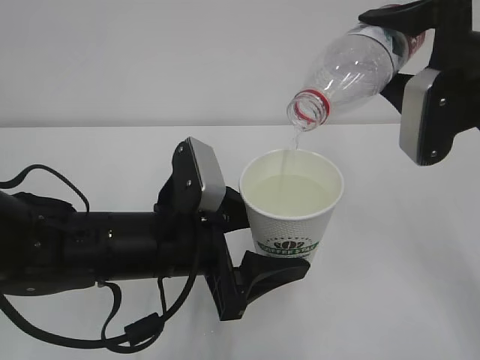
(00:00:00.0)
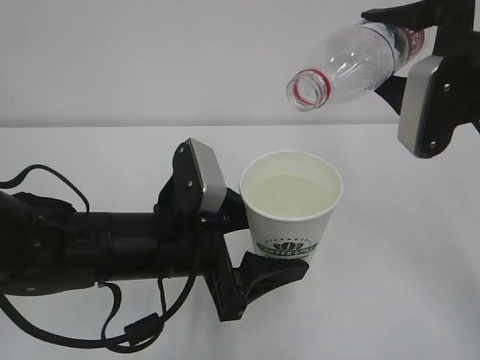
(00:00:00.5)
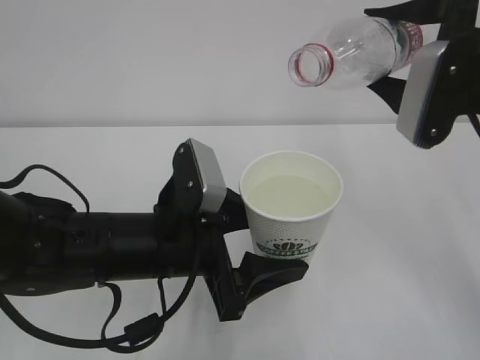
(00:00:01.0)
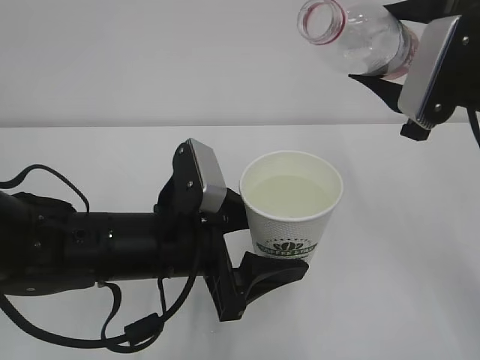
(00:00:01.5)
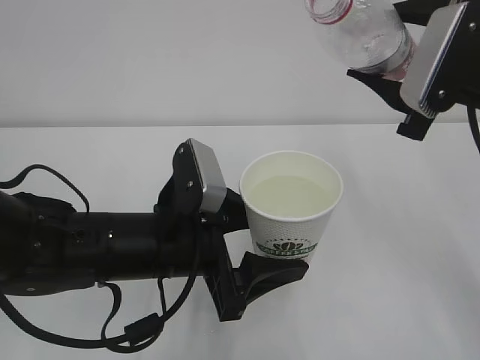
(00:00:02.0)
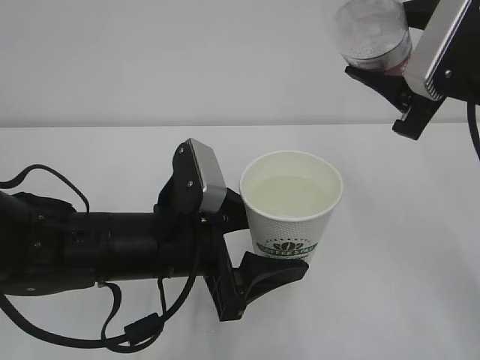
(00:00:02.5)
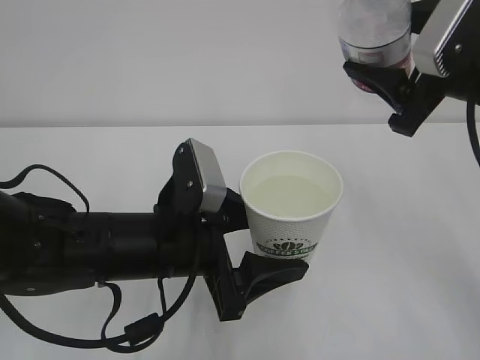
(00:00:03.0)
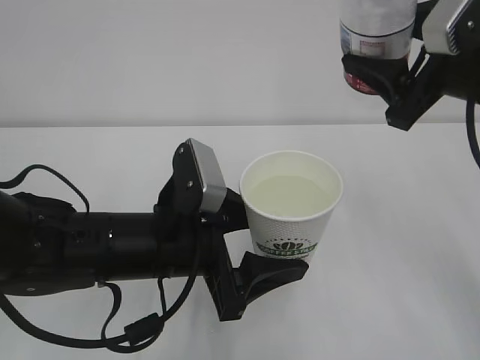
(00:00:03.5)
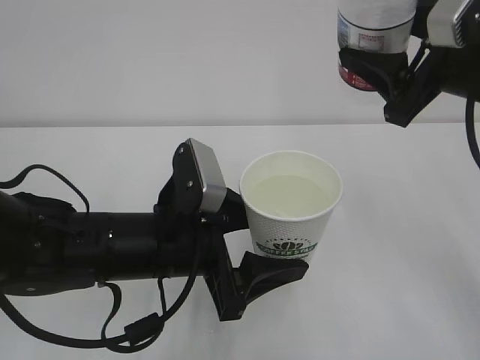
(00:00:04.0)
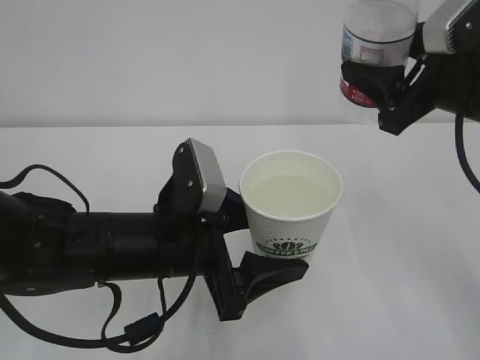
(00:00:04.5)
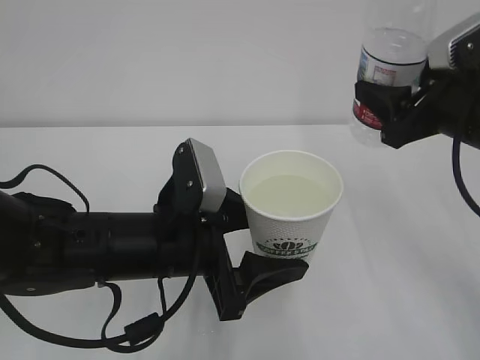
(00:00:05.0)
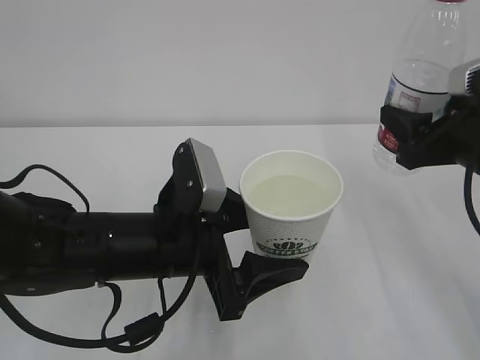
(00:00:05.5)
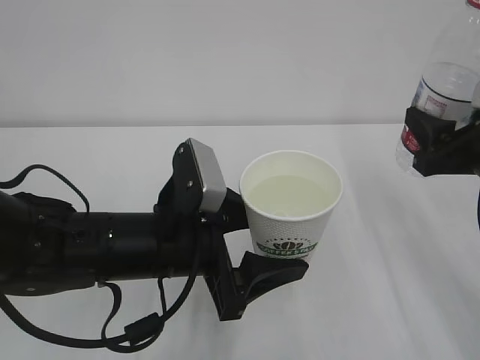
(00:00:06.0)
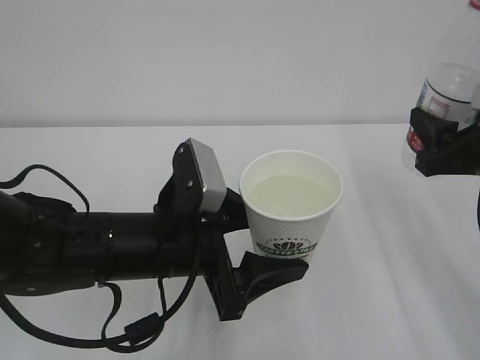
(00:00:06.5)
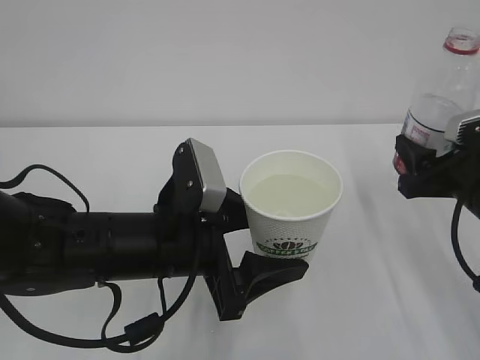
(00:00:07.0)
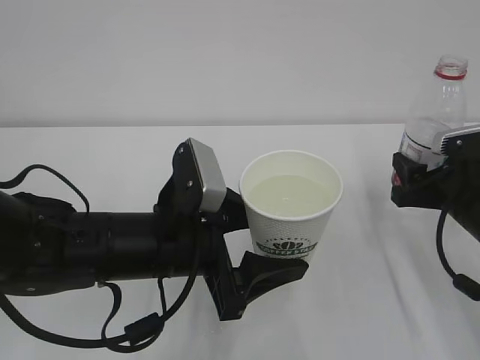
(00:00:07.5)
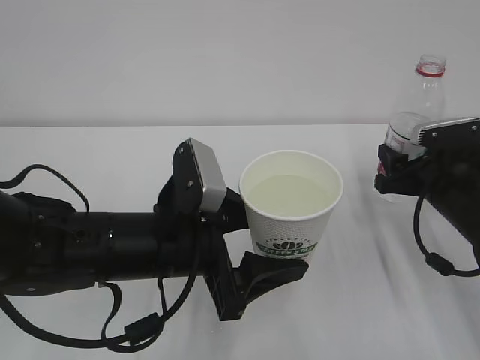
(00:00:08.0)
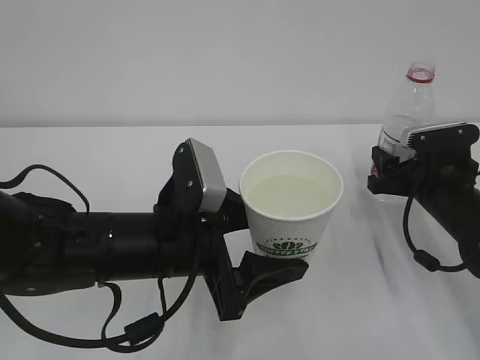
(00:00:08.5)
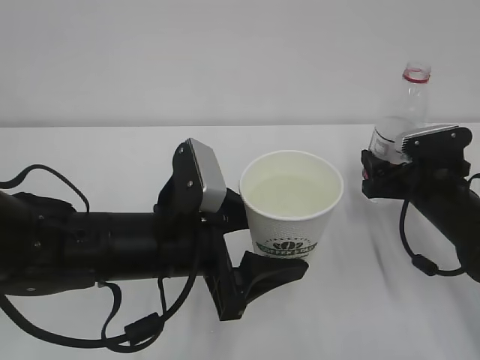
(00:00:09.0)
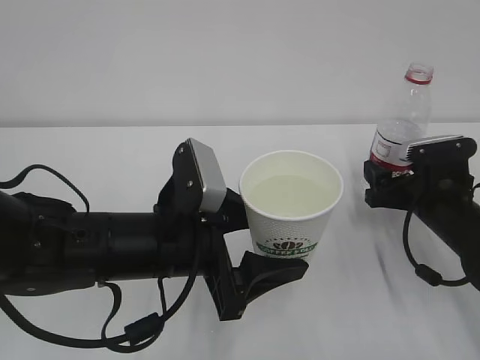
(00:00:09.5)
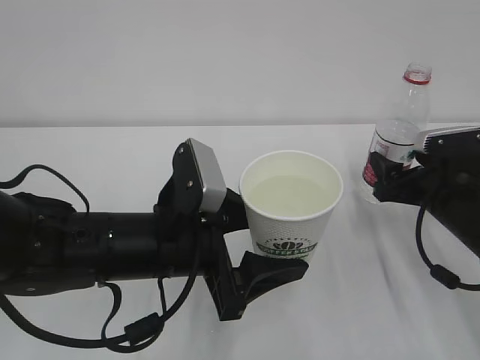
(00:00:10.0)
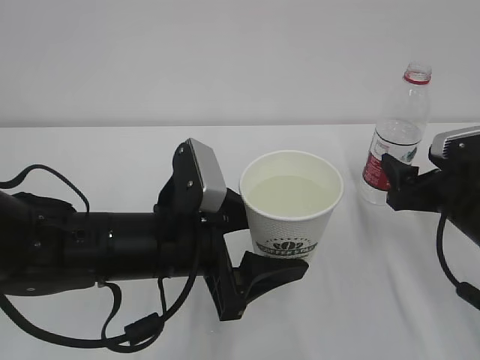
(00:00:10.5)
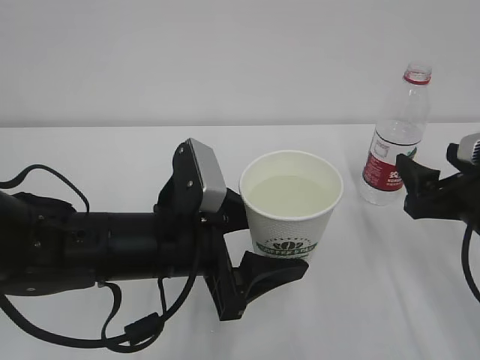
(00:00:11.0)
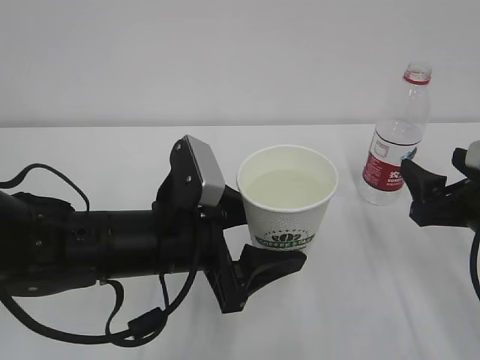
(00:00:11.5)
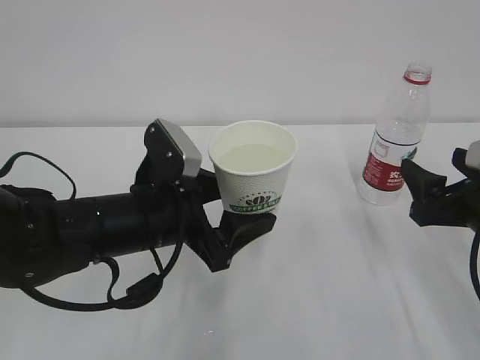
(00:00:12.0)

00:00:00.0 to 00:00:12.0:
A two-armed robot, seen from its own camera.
00:00:04.0 to 00:00:06.0: The right gripper goes about 10 cm downward.
00:00:06.0 to 00:00:08.0: The right gripper heads downward and forward, covering approximately 10 cm.
00:00:08.0 to 00:00:10.0: The right gripper opens.
00:00:10.0 to 00:00:12.0: The right gripper heads backward, covering some 10 cm.

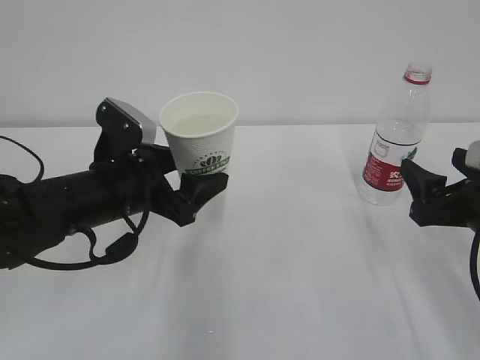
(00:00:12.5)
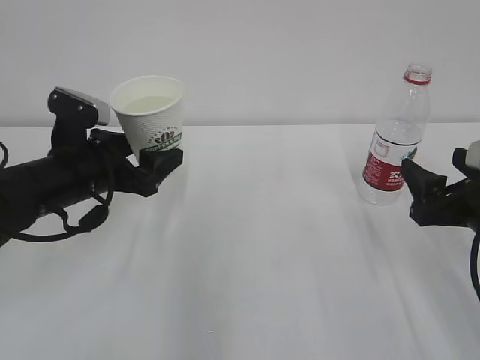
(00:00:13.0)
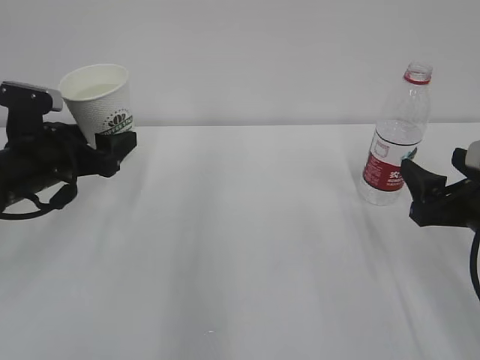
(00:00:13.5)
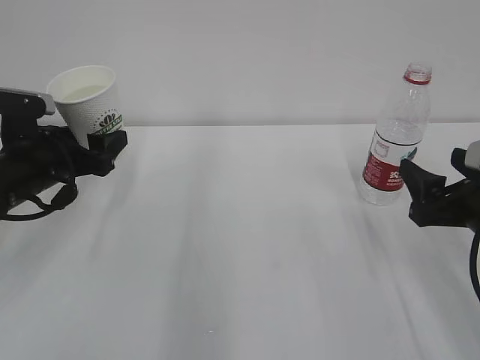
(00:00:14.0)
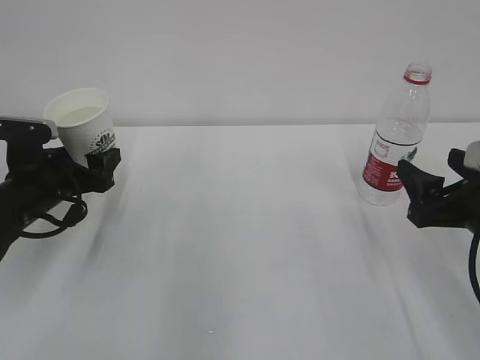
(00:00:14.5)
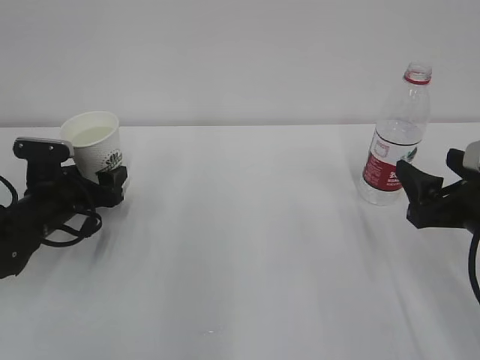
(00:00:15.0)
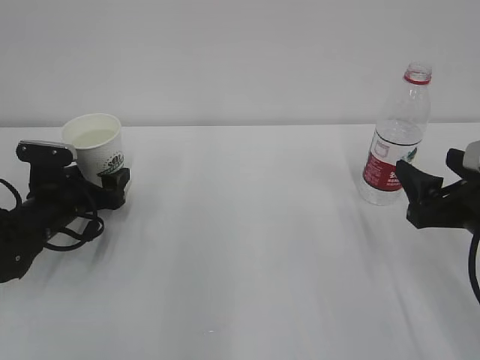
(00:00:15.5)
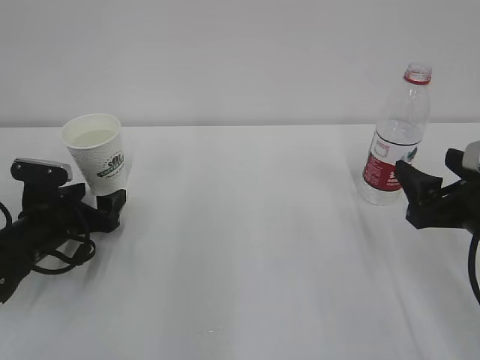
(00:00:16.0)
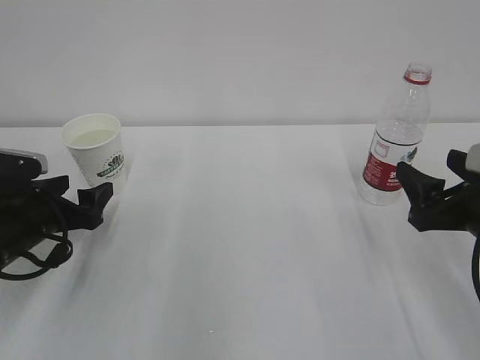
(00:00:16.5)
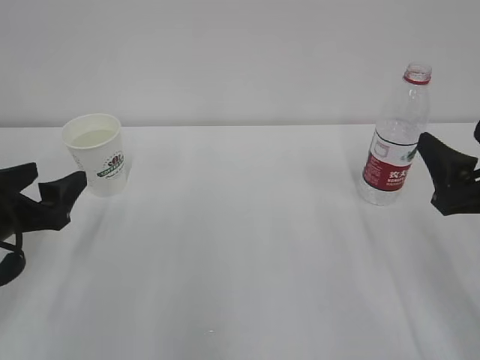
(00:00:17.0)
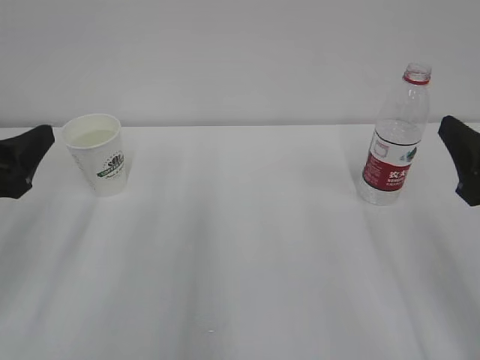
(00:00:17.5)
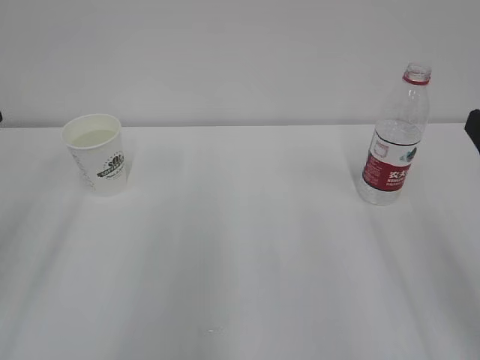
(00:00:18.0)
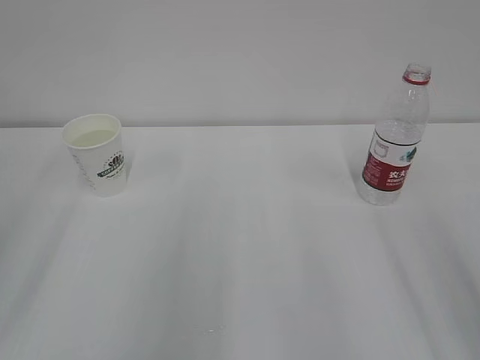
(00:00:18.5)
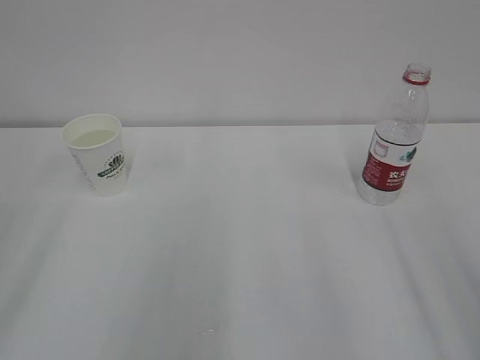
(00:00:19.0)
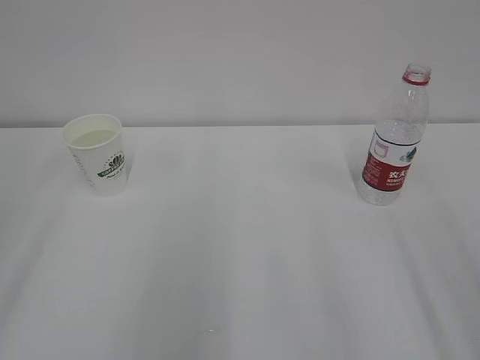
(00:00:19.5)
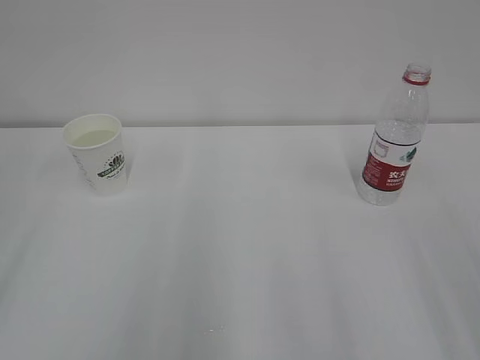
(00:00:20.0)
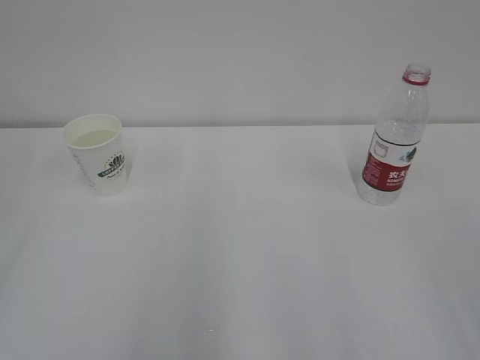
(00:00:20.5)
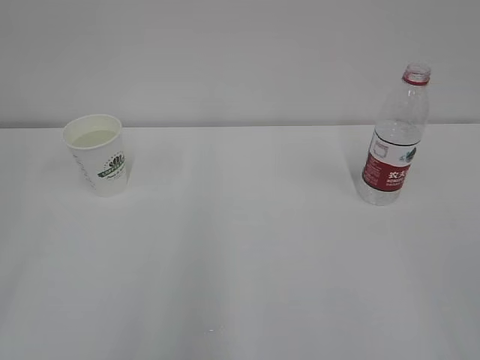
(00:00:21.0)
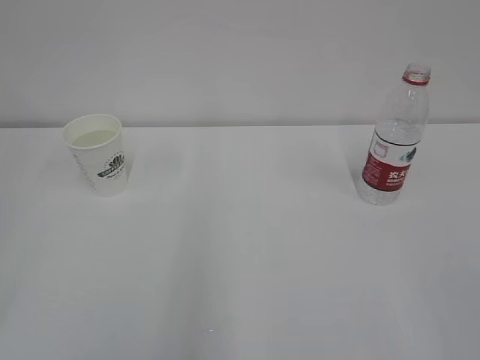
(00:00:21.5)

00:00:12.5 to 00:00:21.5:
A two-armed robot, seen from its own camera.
00:00:12.5 to 00:00:14.5: The left gripper travels to the left and forward by approximately 15 cm.
00:00:14.5 to 00:00:17.0: The left gripper moves backward, some 10 cm.
00:00:17.0 to 00:00:19.5: The right gripper goes some 15 cm backward and upward; the left gripper is displaced upward and backward by roughly 25 cm.

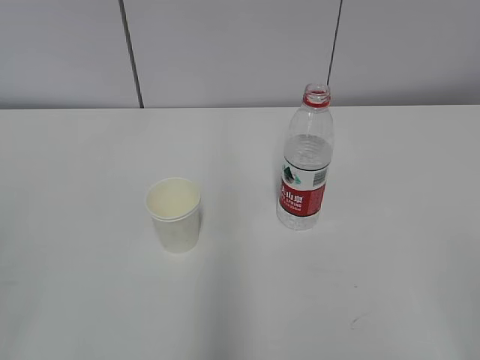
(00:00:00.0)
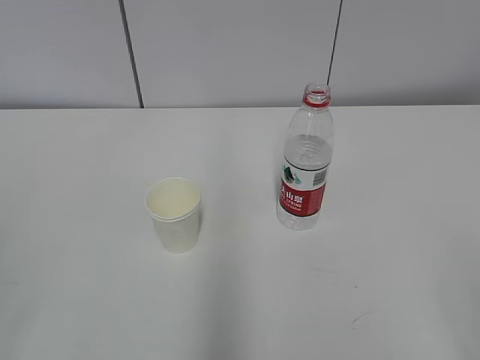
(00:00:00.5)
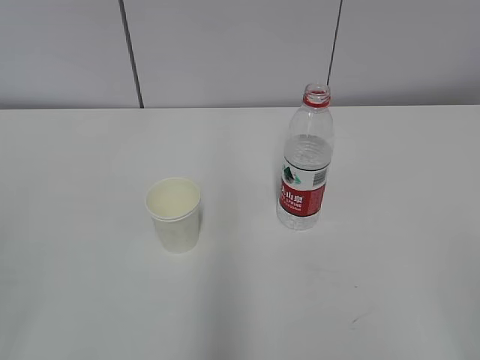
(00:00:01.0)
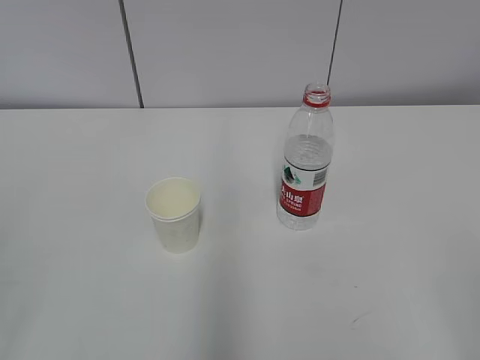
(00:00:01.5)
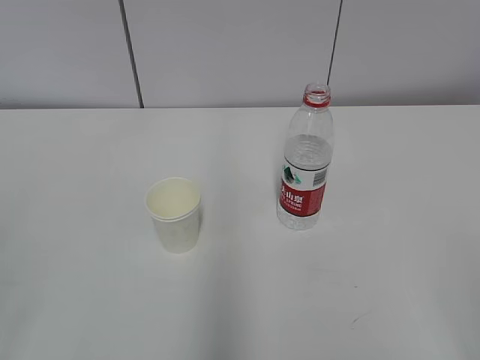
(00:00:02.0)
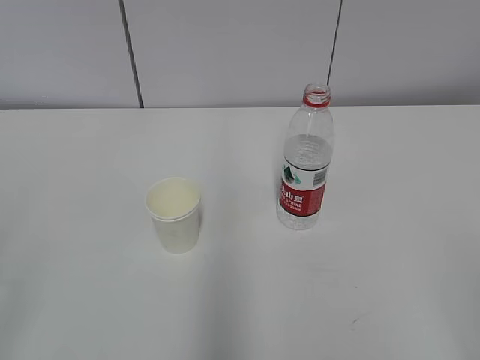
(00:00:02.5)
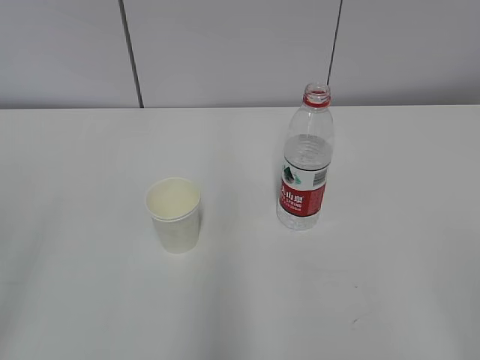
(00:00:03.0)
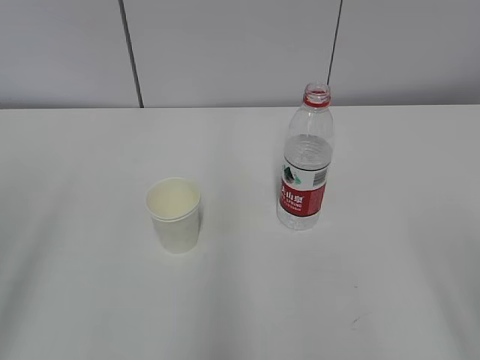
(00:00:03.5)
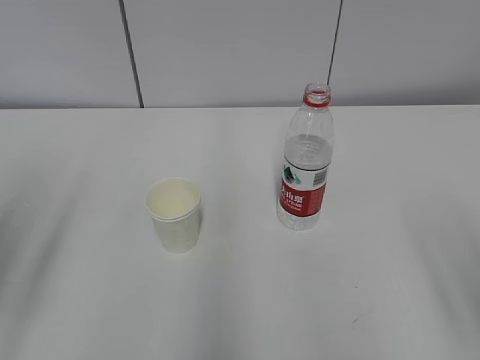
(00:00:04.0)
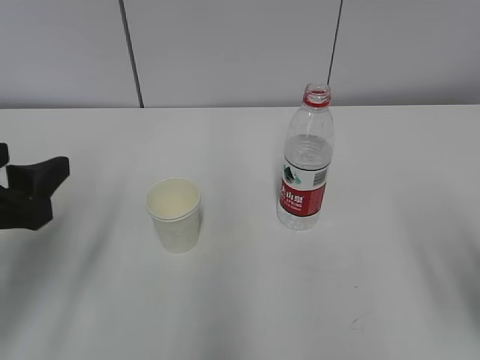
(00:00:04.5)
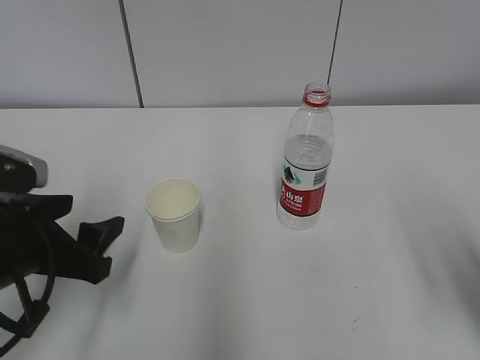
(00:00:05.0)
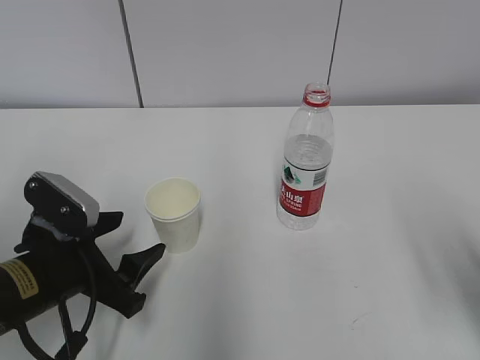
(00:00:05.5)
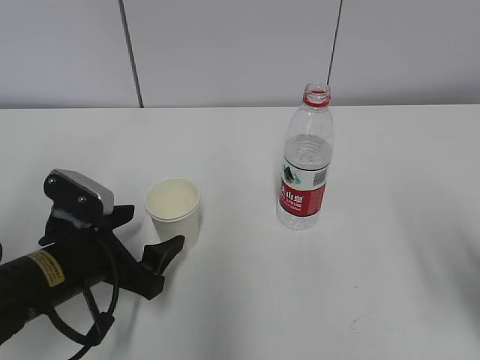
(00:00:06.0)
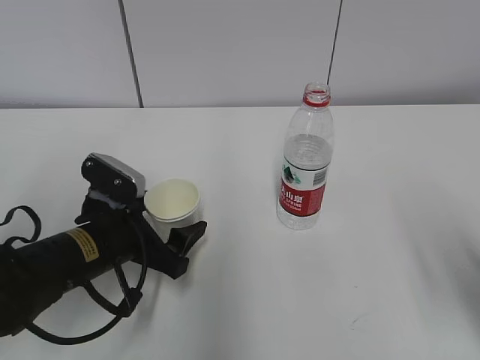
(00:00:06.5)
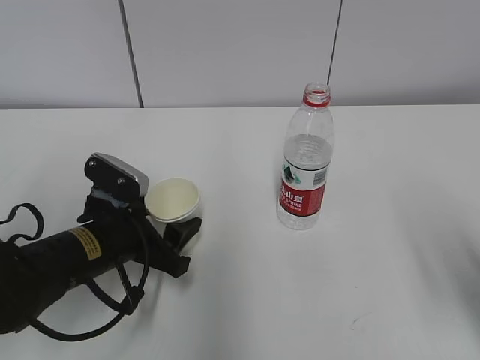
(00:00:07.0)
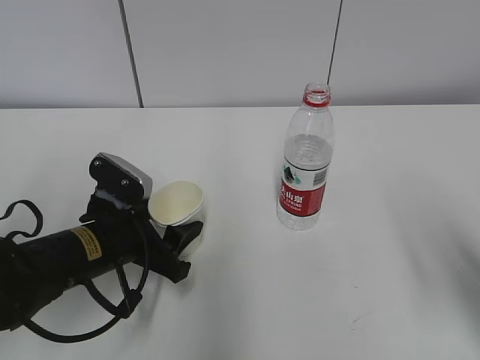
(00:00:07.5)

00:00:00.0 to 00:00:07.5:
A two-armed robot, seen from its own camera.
Step, 00:00:00.0 to 00:00:06.5: Grab the paper cup with the left hand.
00:00:04.0 to 00:00:05.5: The left gripper travels downward, to the right and forward by roughly 20 cm.
00:00:05.5 to 00:00:07.5: The left gripper heads forward, covering some 5 cm.
